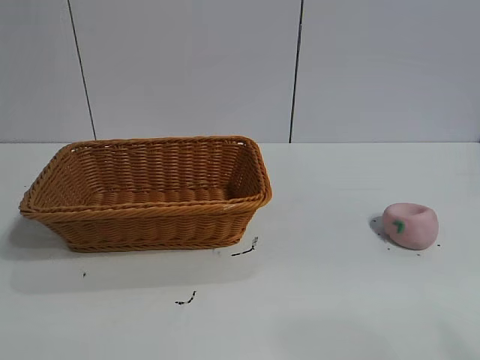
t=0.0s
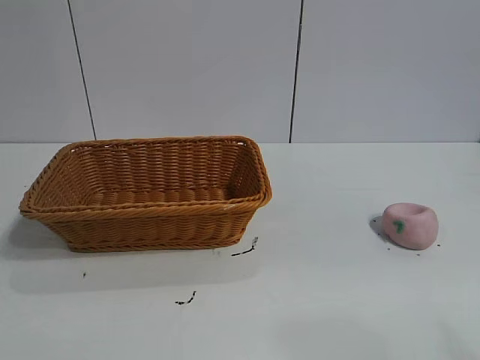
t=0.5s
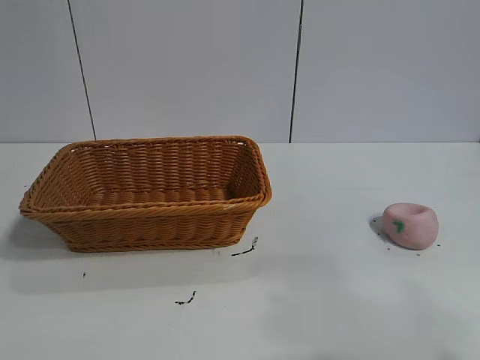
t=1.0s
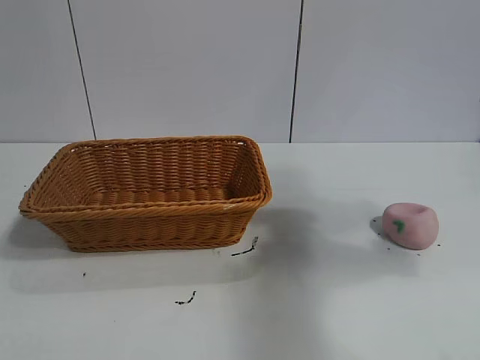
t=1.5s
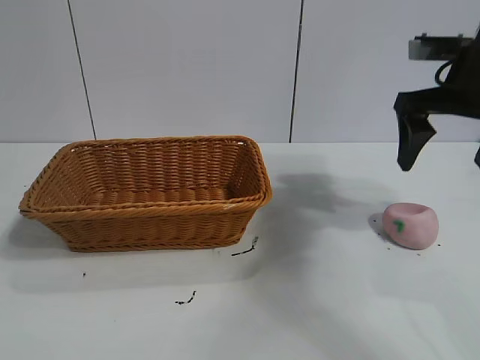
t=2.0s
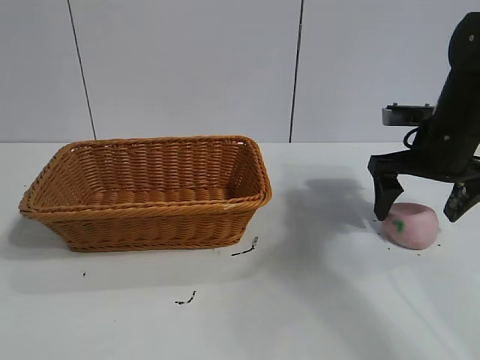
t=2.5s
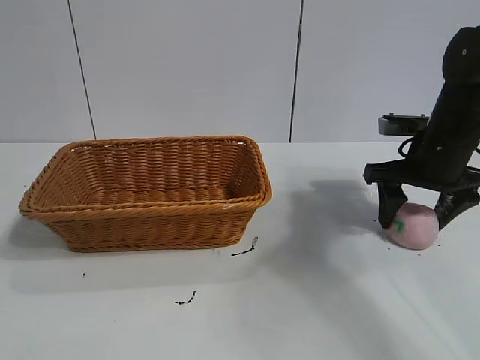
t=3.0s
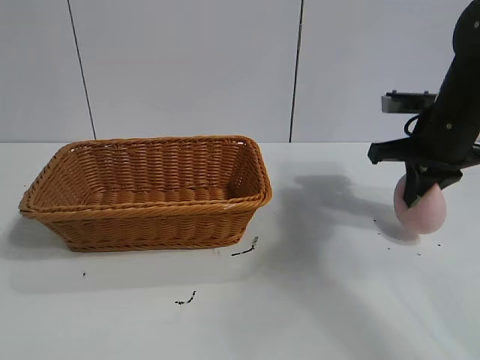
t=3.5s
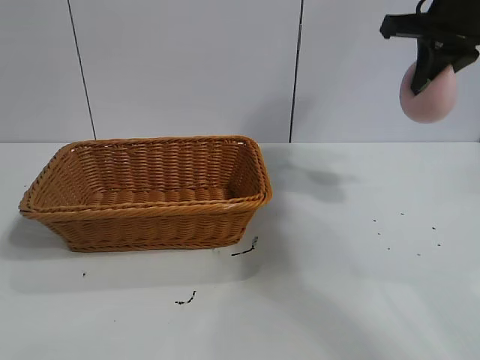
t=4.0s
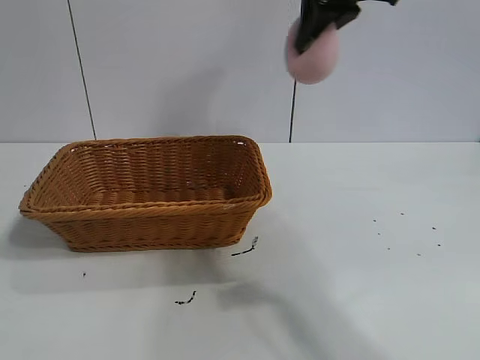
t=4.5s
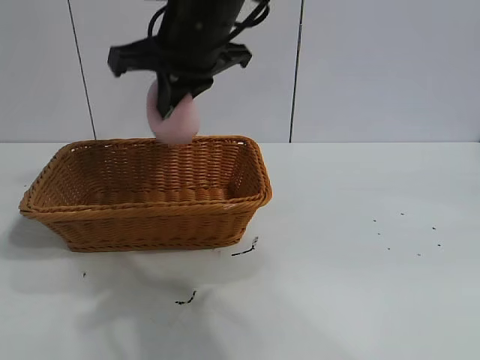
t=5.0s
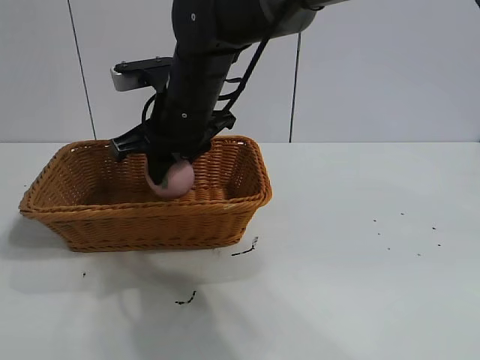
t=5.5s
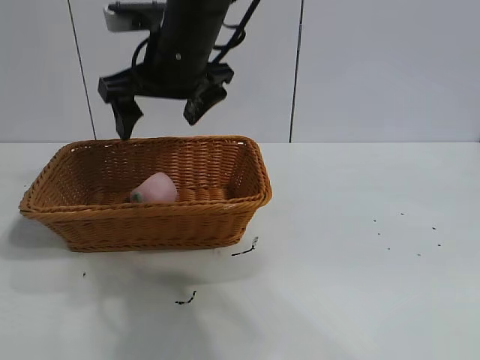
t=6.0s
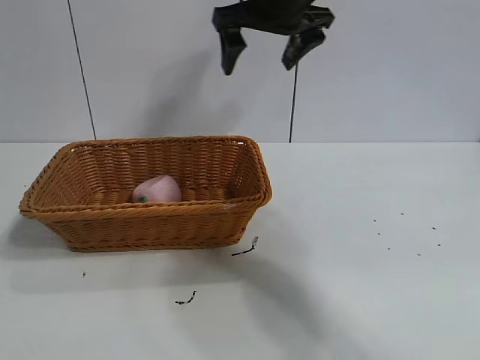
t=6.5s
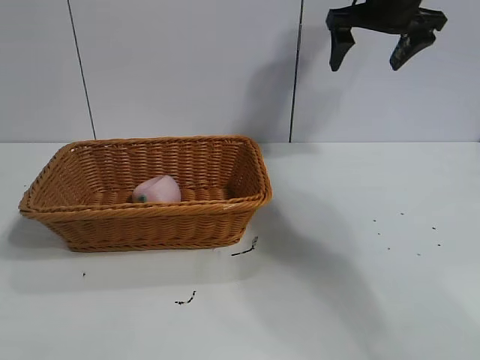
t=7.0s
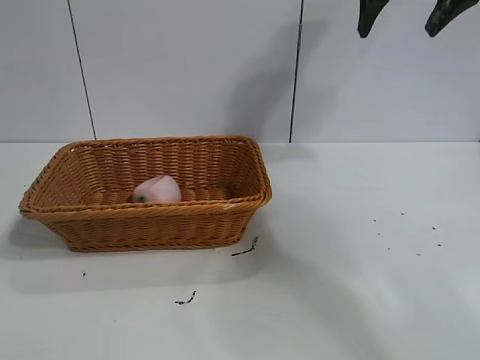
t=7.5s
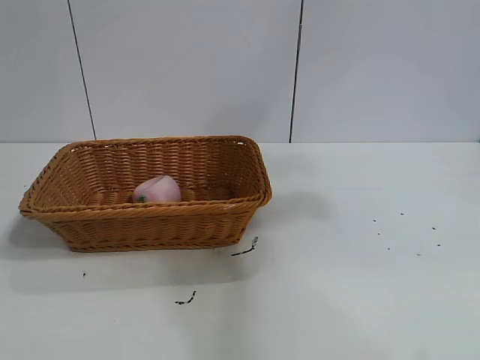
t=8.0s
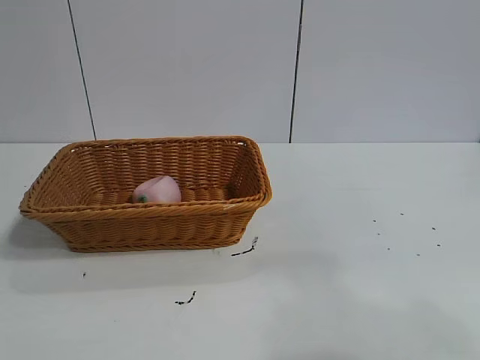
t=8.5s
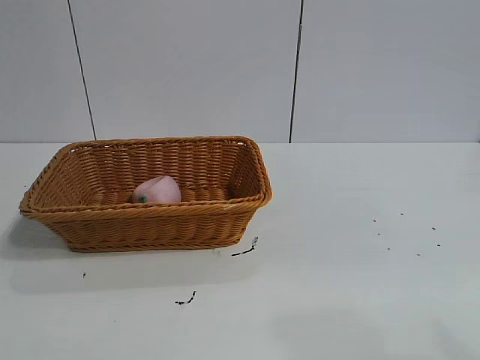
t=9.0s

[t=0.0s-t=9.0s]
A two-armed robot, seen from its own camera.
Task of the whole recording: pick up the peach and put it into the basket.
Step, t=1.0s to t=3.0s: Grasp the peach with right gripper.
Step, t=3.5s to t=5.5s: Place the peach in the basket with right gripper.

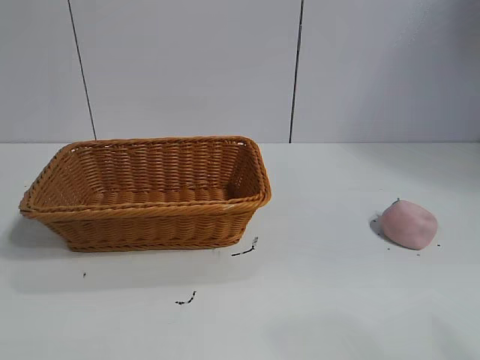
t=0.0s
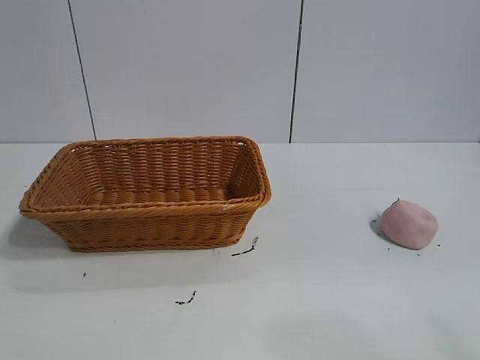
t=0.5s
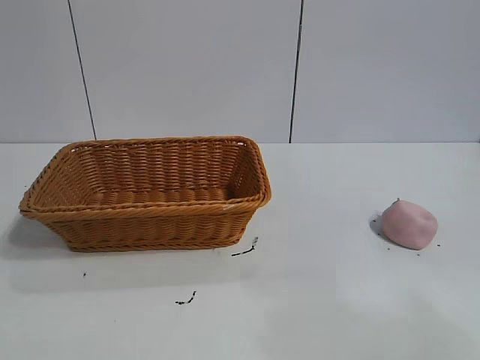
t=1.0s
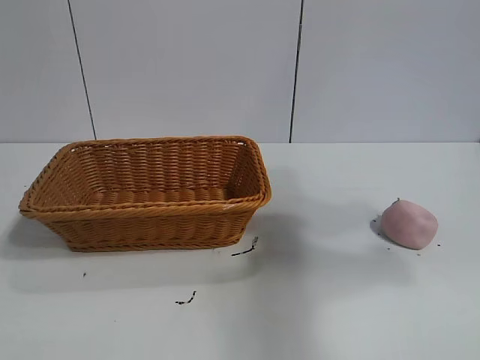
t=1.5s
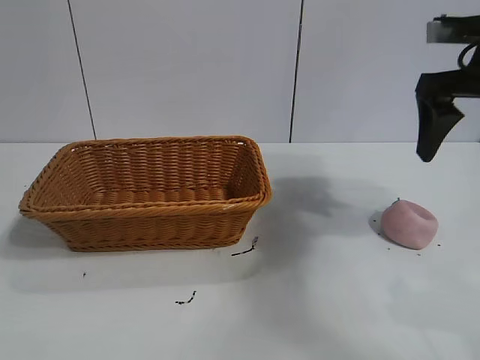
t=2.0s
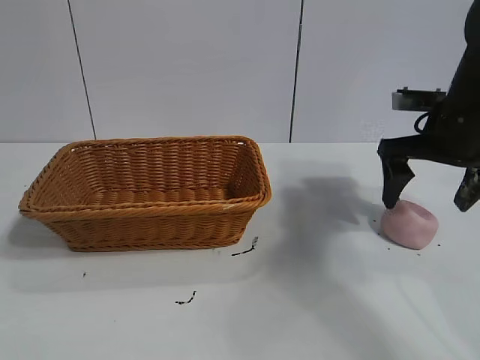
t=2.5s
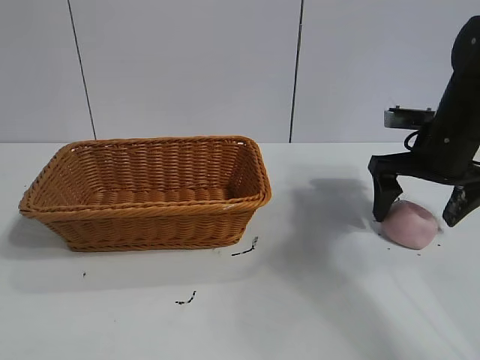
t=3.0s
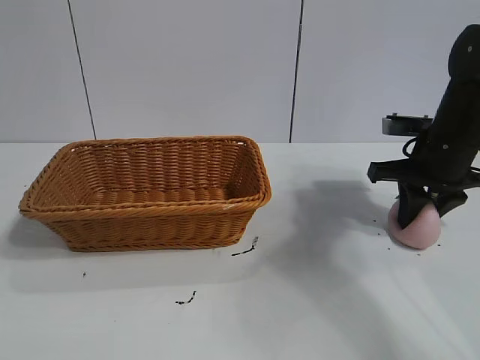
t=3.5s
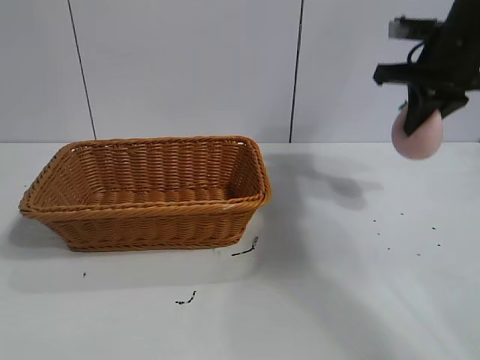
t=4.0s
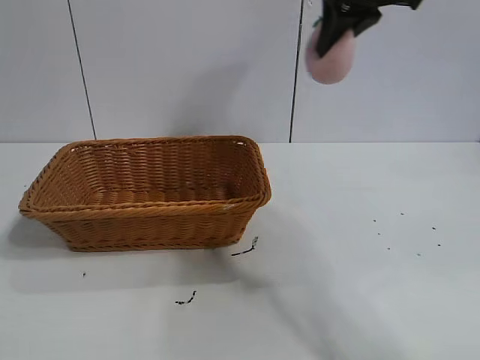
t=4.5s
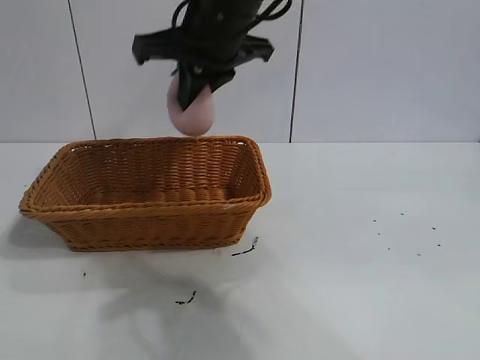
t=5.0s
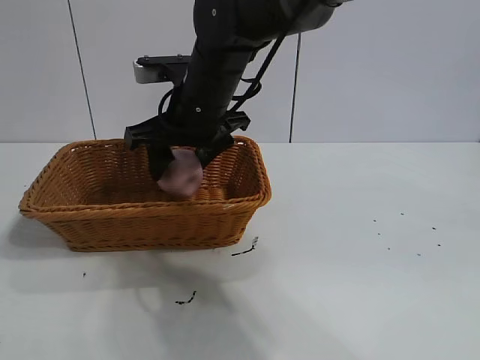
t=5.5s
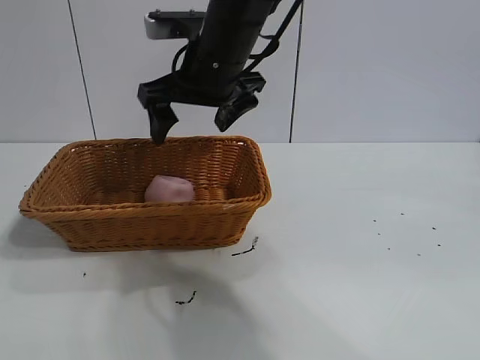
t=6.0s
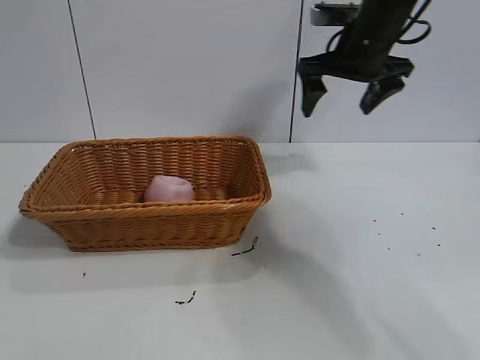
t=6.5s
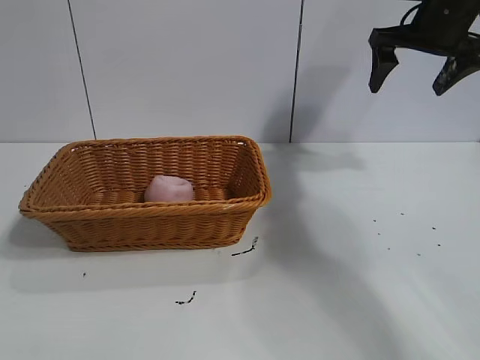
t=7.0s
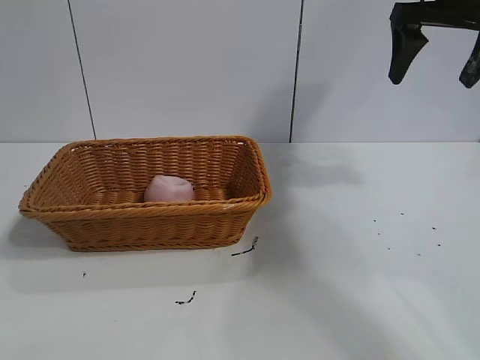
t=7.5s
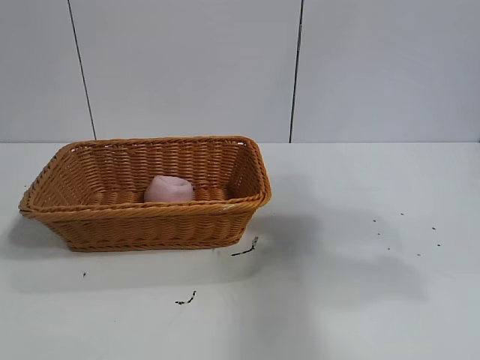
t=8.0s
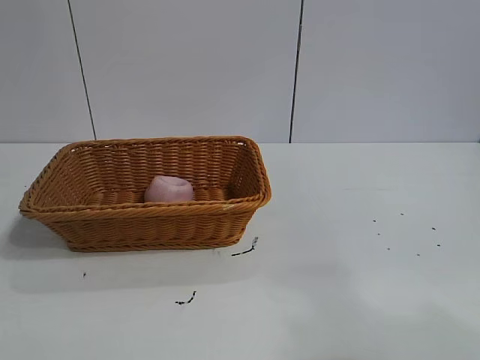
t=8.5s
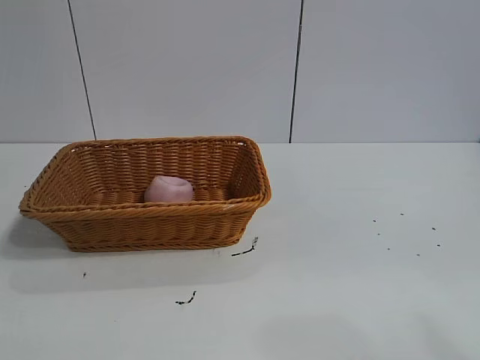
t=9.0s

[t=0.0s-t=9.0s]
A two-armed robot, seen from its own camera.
Task of the whole recording: pick up the peach and put it into the basket.
Step, t=1.0s to t=3.5s: Grasp the peach with right gripper.
Step, t=4.0s to t=5.5s: Place the peach in the basket with right gripper.

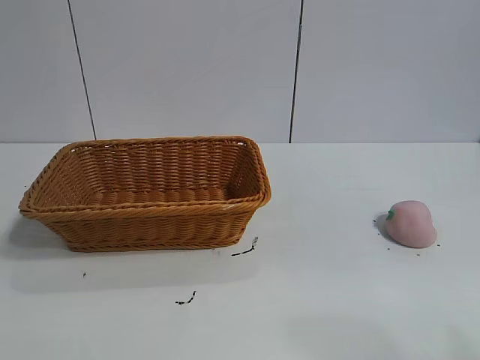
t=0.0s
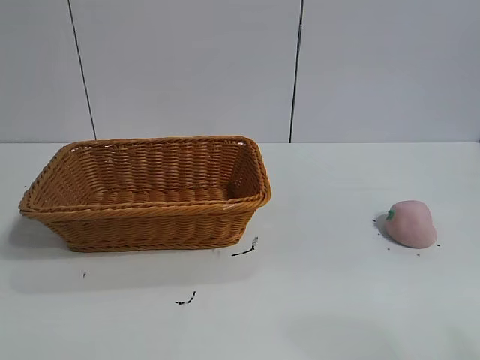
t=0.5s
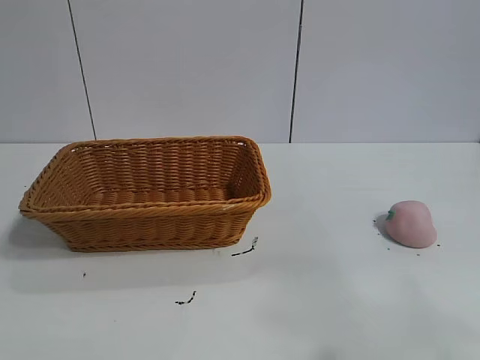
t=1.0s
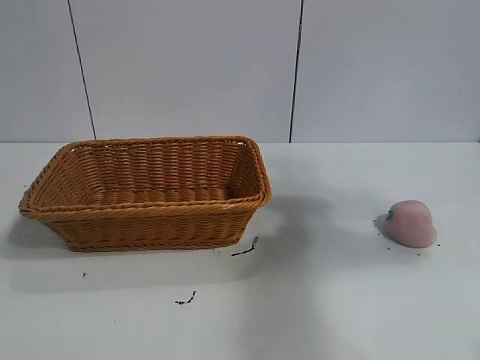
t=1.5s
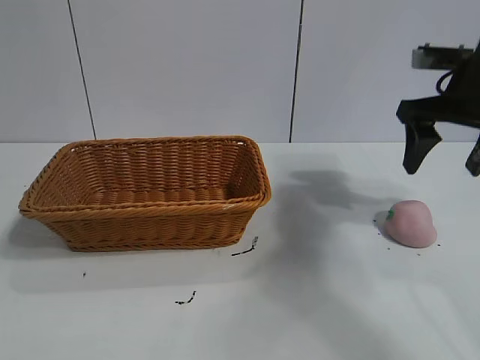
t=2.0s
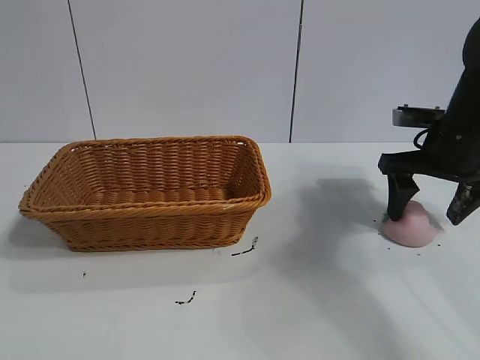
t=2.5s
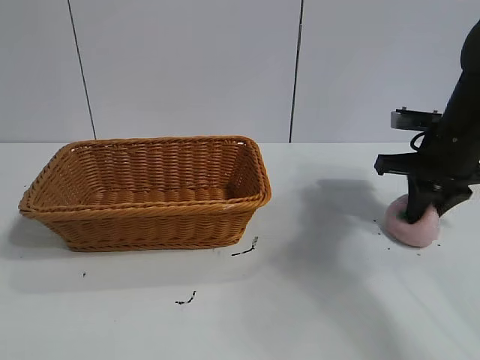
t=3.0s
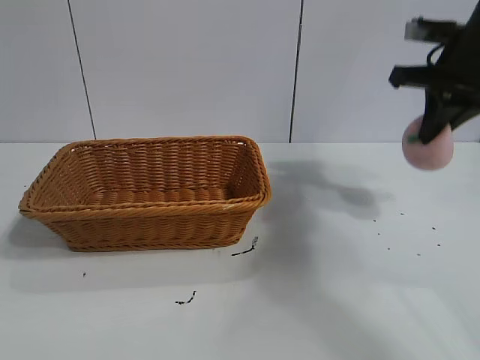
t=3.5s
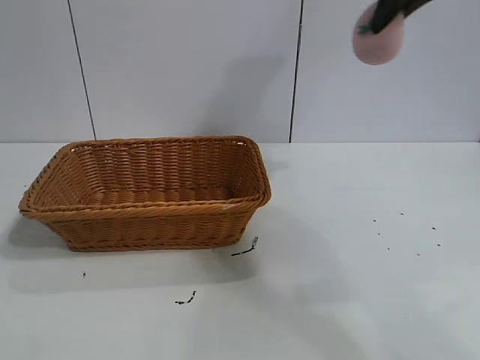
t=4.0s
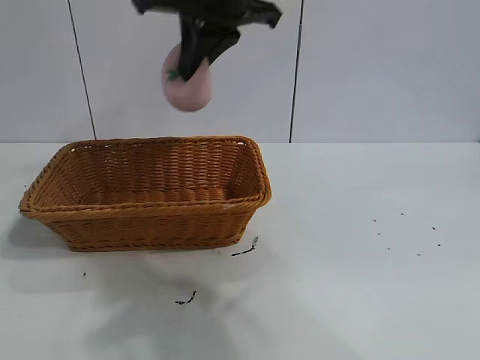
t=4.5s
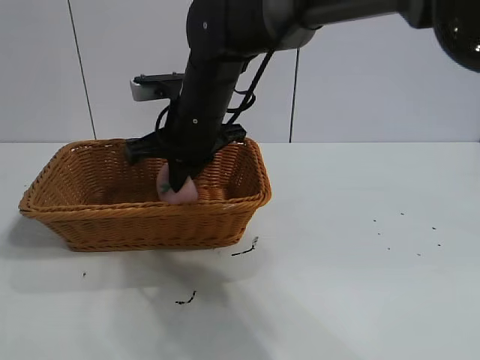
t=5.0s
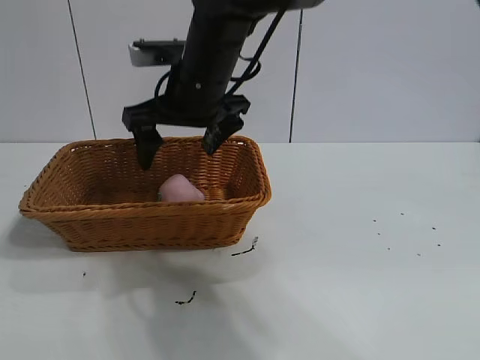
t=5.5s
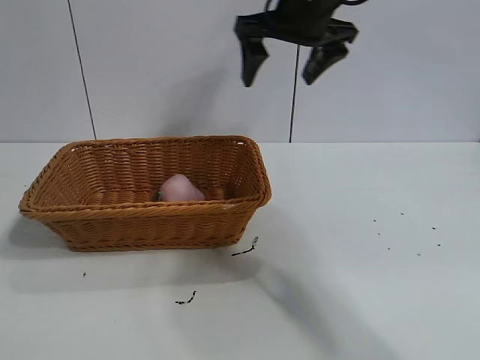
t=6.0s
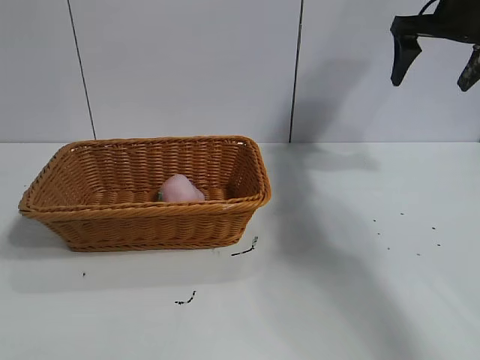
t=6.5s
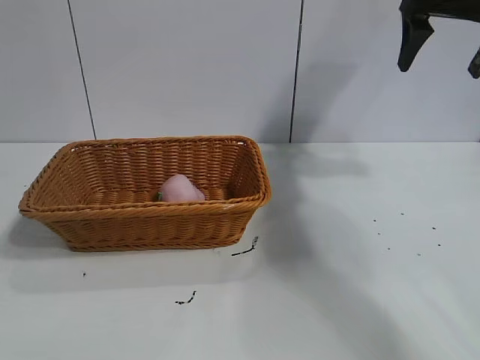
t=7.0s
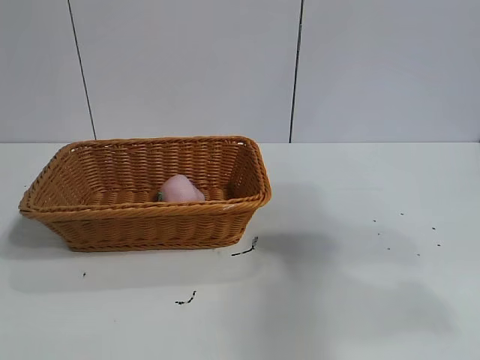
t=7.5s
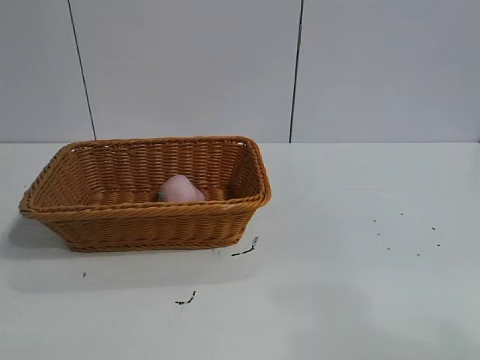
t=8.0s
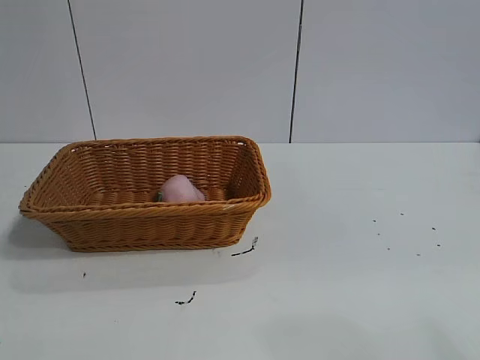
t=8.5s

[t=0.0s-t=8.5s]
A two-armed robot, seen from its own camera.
Task of the whole recording: pick up the peach and put it into the basket.
Step, t=1.0s to t=3.0s: Grasp the peach with right gripper.
Step, t=3.5s to t=5.5s: Place the peach in the basket with right gripper.
